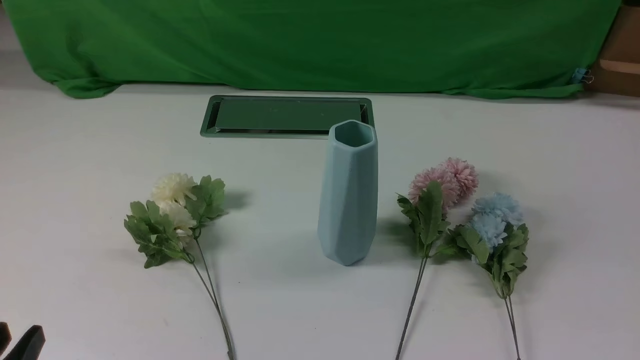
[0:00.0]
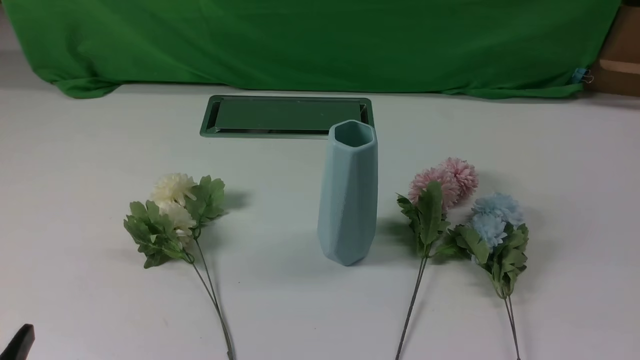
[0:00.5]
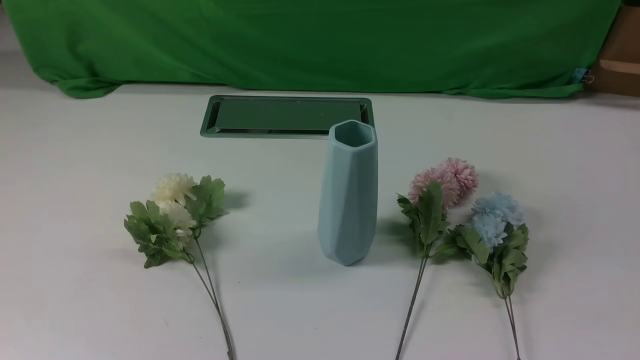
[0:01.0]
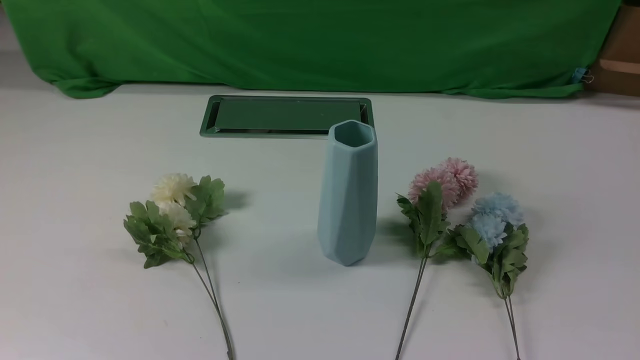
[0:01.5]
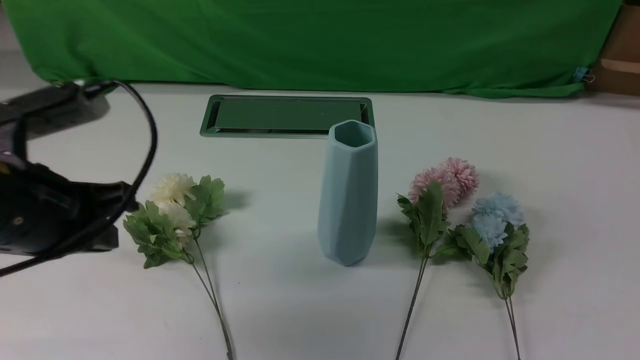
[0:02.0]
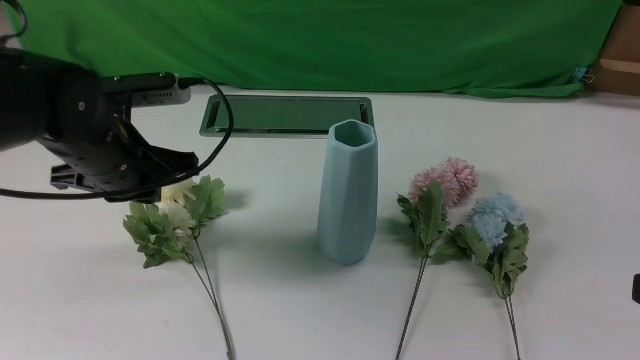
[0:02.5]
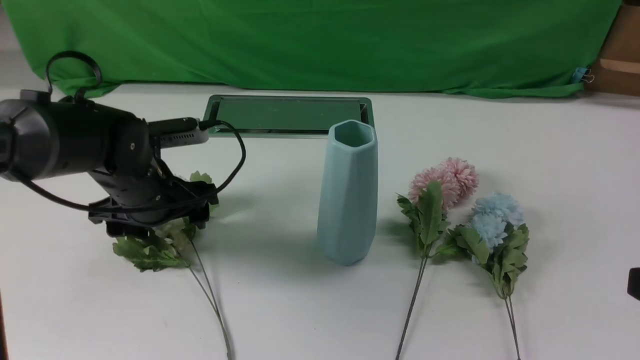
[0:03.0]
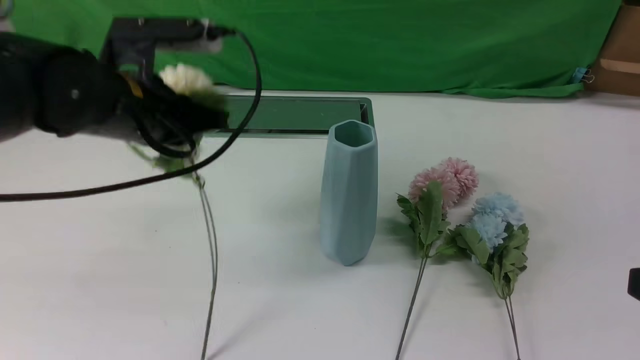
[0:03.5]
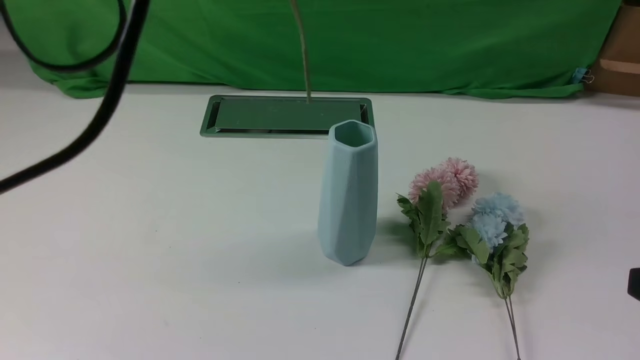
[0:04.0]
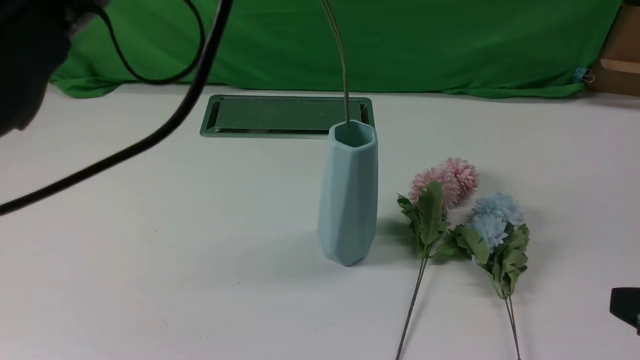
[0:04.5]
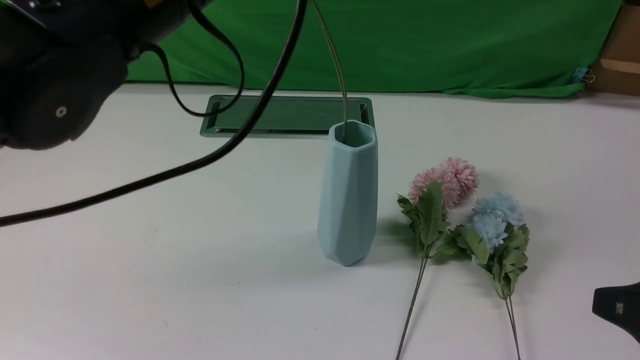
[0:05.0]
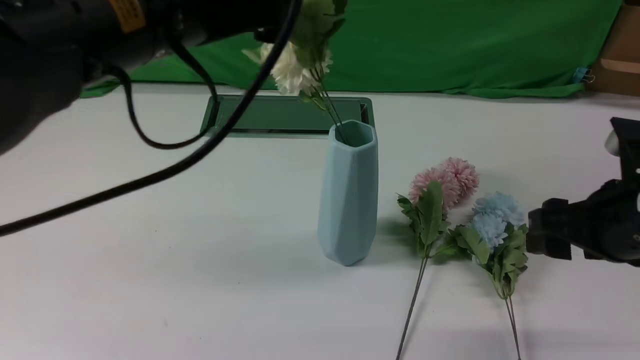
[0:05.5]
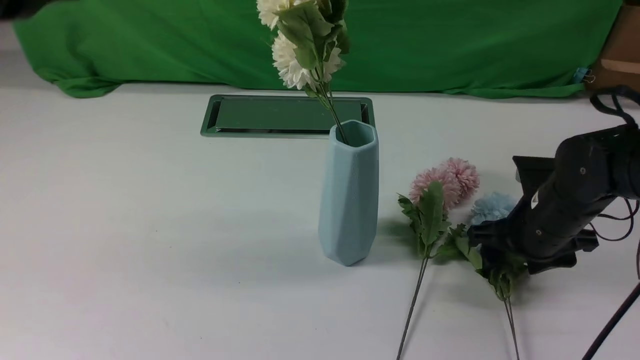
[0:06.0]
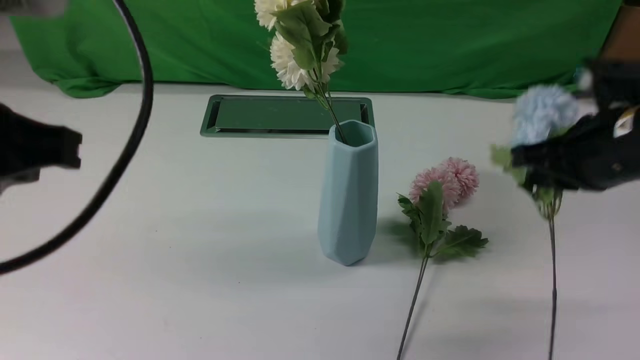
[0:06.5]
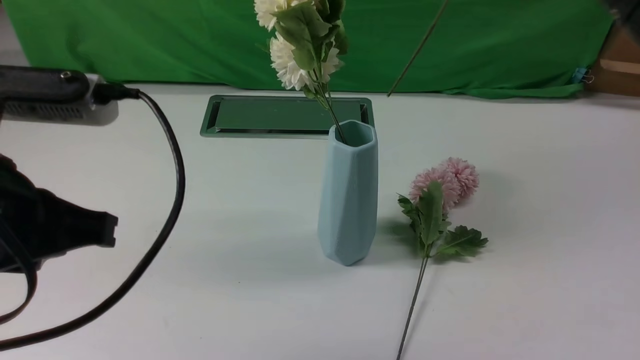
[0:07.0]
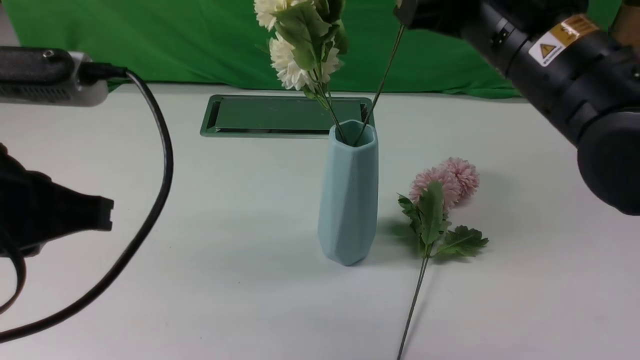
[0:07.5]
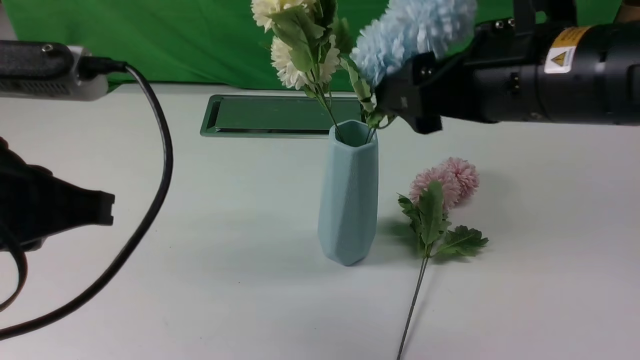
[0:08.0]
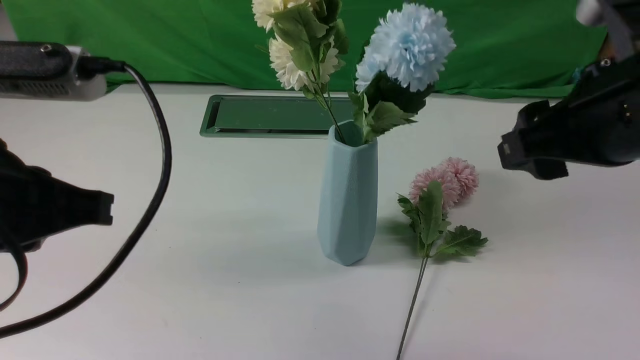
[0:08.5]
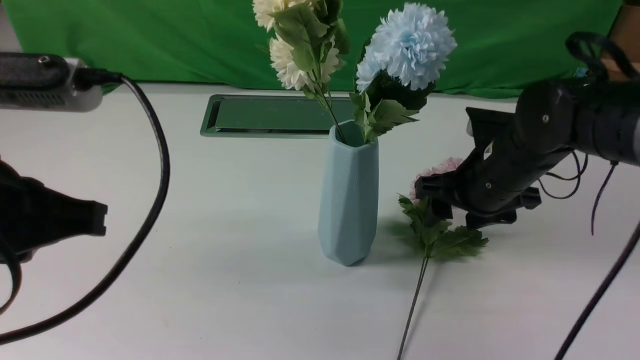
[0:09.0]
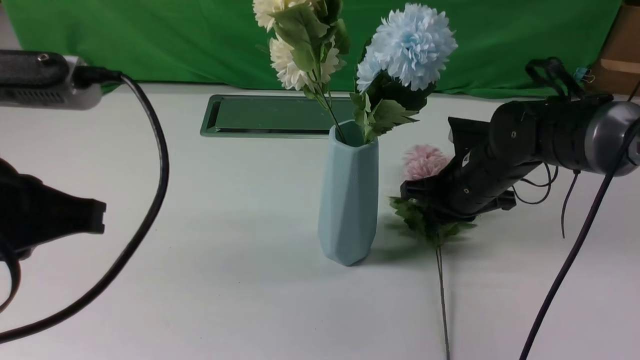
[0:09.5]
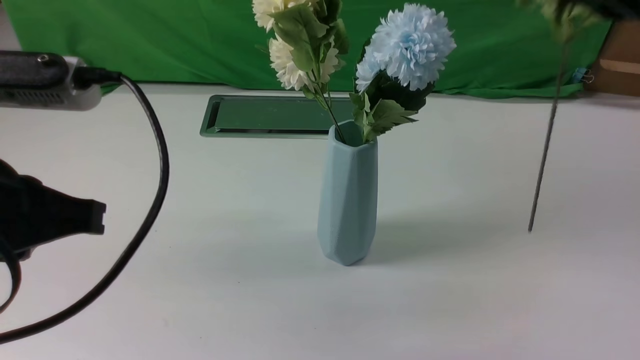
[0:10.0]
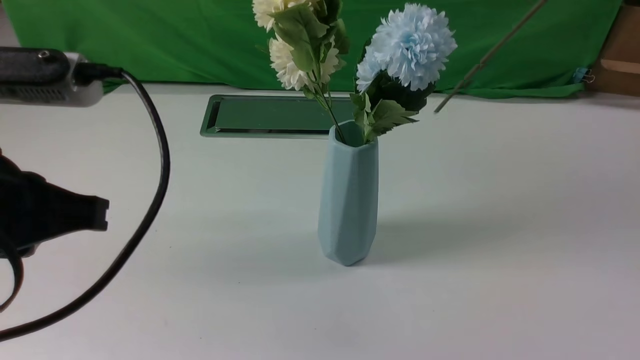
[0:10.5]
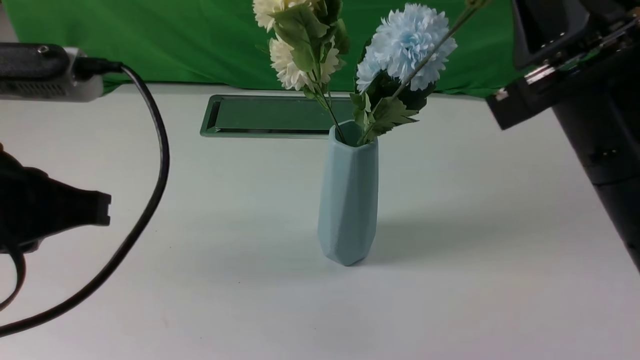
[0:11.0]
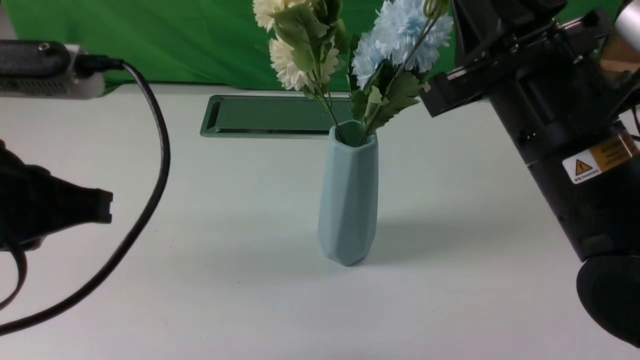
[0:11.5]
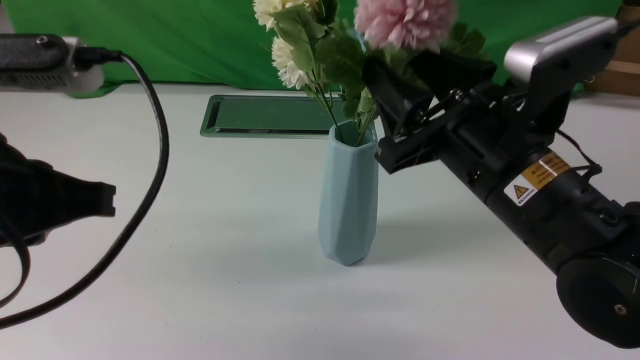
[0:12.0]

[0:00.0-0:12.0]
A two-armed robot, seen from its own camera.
Task of the whole recording: insert the flowers into the vase on the white table.
Step, 0:00.0 to 0:03.0: use the left arm to grab a bunch of fresh flowers.
Step, 0:03.5 to 0:05.5: use the left arm to insert the flowers into the vase.
Step, 0:06.5 to 0:08.0: use the right arm to insert the flowers into the vase.
Step, 0:08.5 to 0:09.0: use the right arm to grab a bunch of fresh flowers.
0:00.0 to 0:02.0: The right gripper is displaced upward by some 10 cm; the left gripper shifts some 20 cm forward and upward, and closes up.
0:02.0 to 0:04.0: The right gripper moves forward, approximately 5 cm; the left gripper shifts approximately 20 cm upward and to the right, and opens and closes again.
0:04.0 to 0:06.0: The left gripper heads backward, covering approximately 5 cm, and opens, then closes once more. The right gripper heads forward and downward, covering some 25 cm.
0:06.0 to 0:08.0: The right gripper moves upward and to the left, about 25 cm, and closes, then opens again, while the left gripper shifts some 10 cm downward, and closes its fingers.
0:08.0 to 0:10.0: The right gripper is displaced to the right by approximately 10 cm, moves roughly 20 cm downward and comes back, and closes its fingers.
0:10.0 to 0:12.0: The right gripper moves downward and to the left, about 20 cm, and opens its fingers.

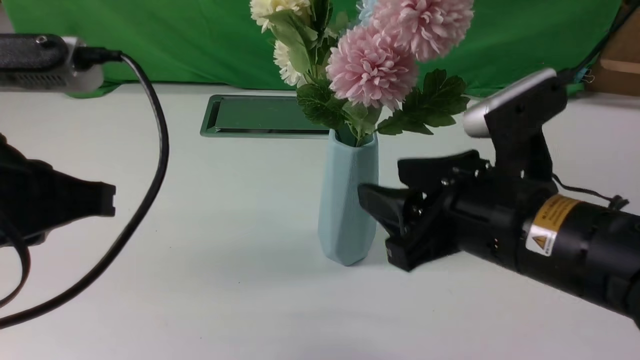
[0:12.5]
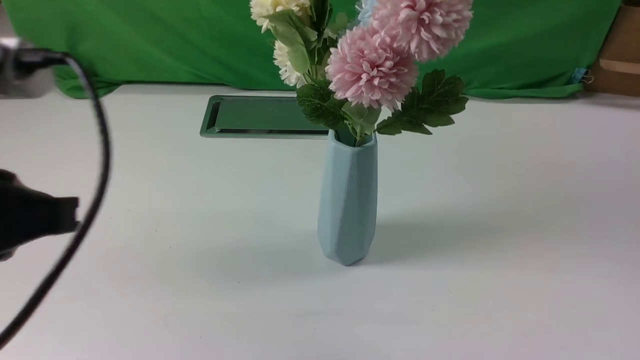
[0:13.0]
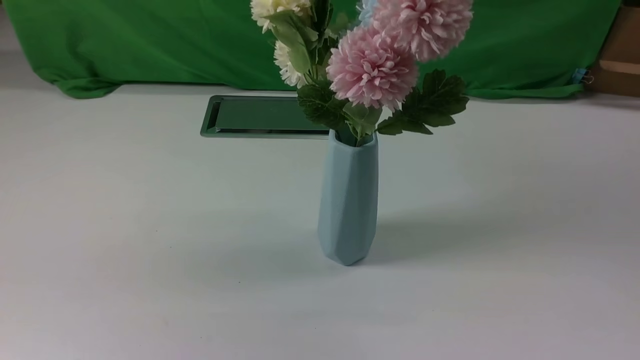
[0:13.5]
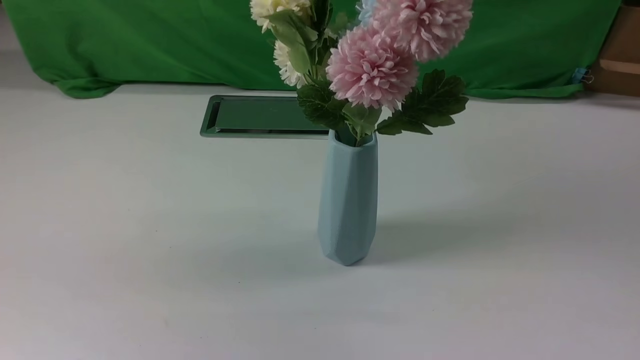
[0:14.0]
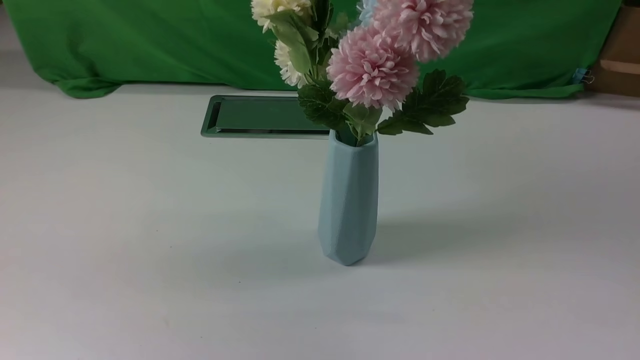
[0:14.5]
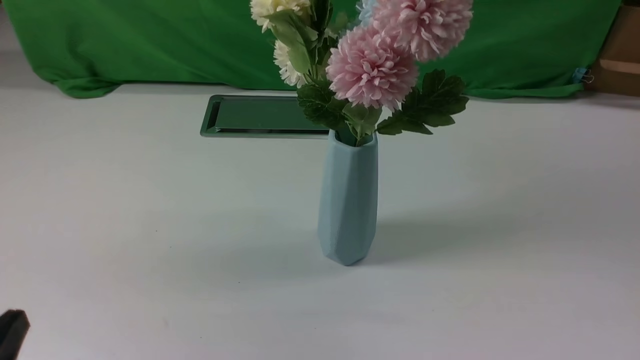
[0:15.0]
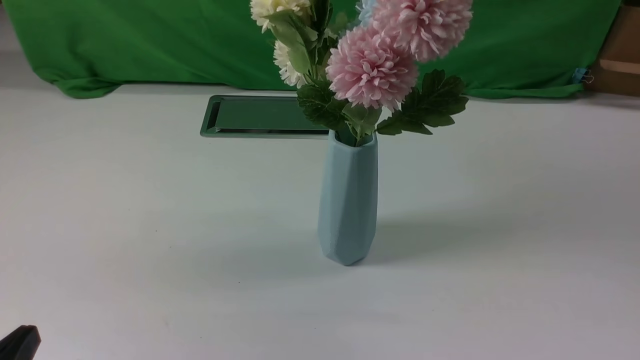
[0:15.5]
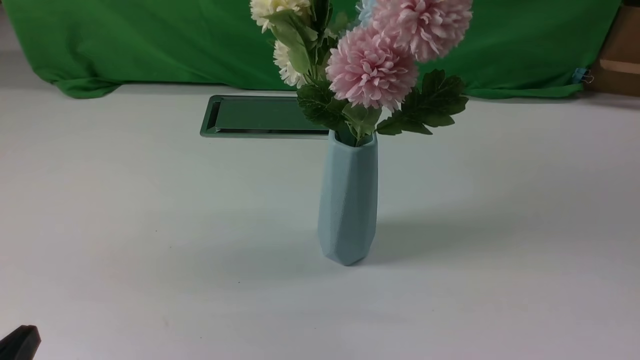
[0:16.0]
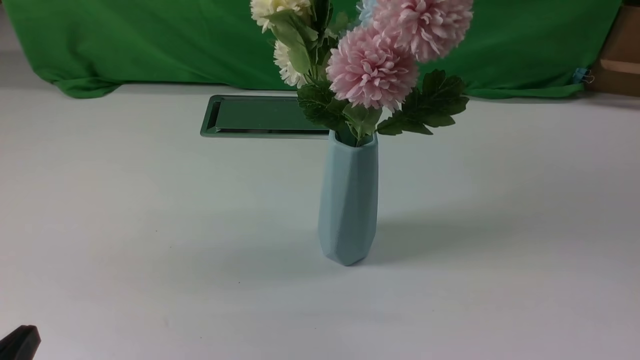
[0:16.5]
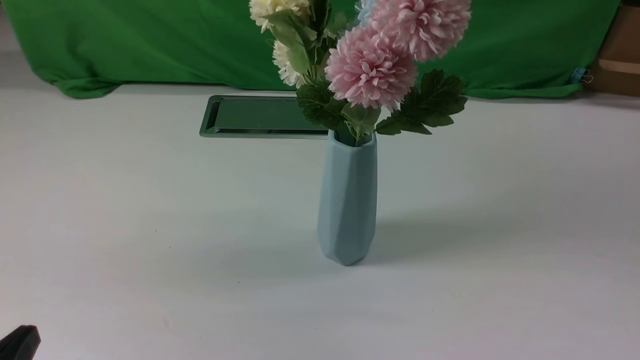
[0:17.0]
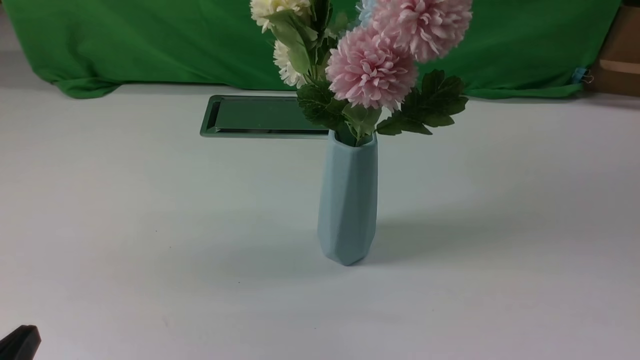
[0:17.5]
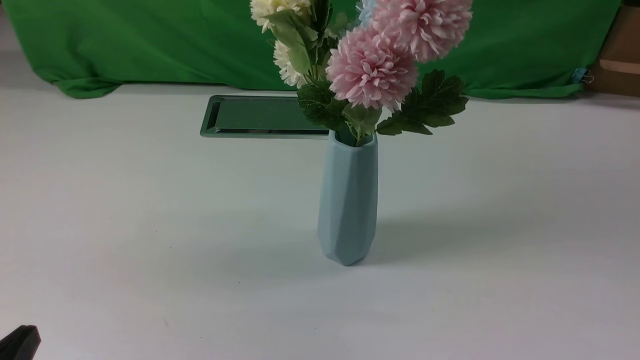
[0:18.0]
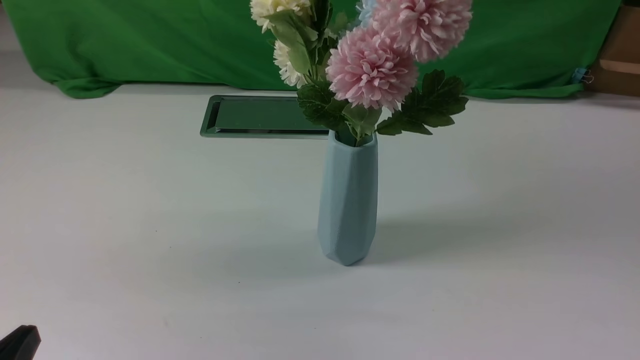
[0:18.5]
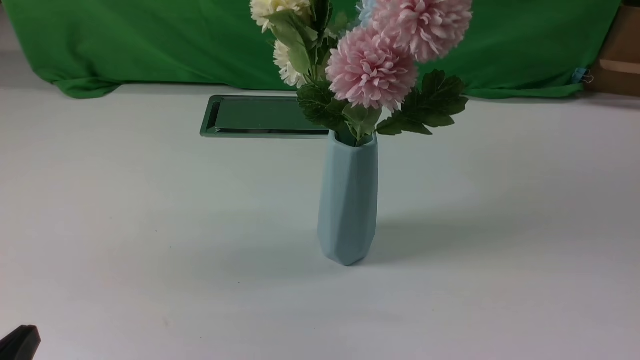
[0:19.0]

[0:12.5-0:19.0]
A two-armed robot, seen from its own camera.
Task of the whole recording: insert the flowers into the vase on the white table.
0:12.5 to 0:14.5: The right gripper moves to the right and backward, roughly 25 cm, and closes; the left gripper heads backward and to the left, covering approximately 15 cm.
0:14.5 to 0:17.0: The left gripper moves downward, some 15 cm.
